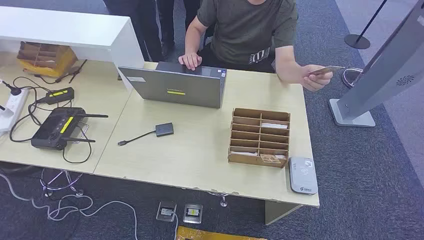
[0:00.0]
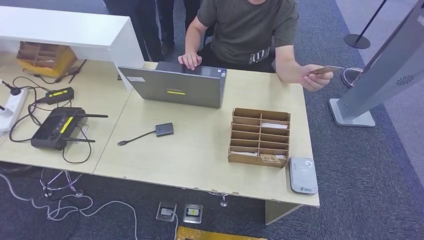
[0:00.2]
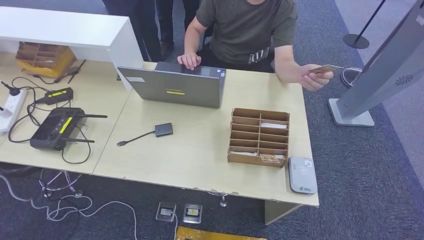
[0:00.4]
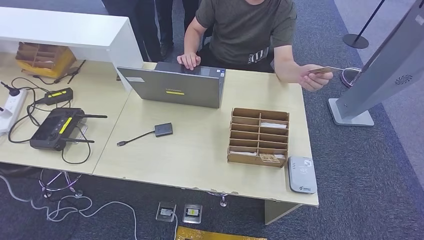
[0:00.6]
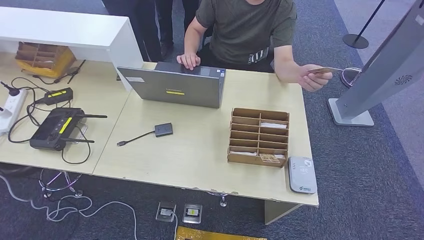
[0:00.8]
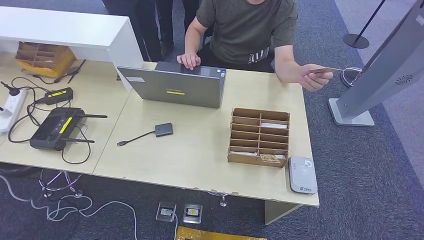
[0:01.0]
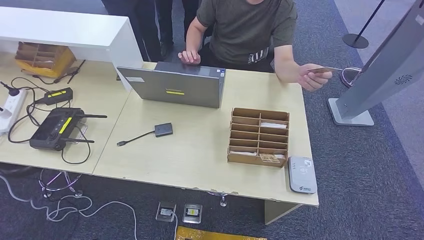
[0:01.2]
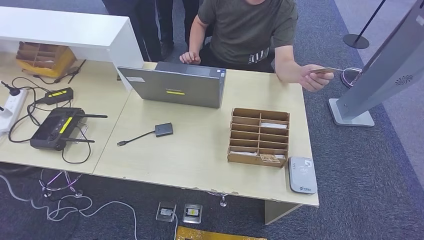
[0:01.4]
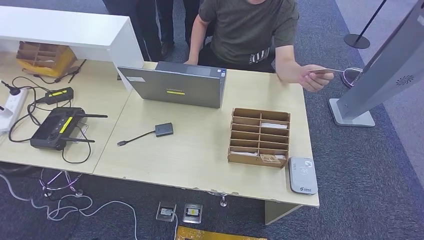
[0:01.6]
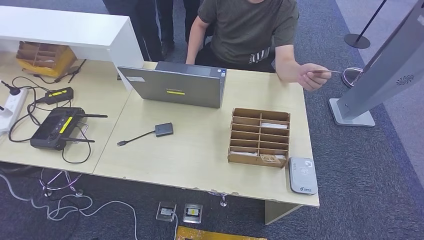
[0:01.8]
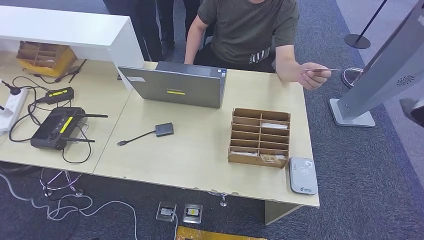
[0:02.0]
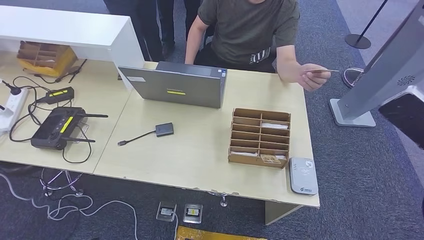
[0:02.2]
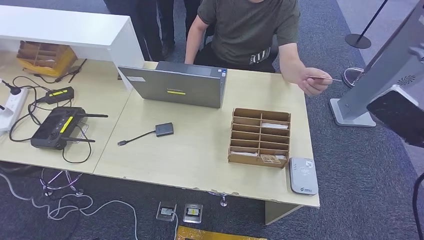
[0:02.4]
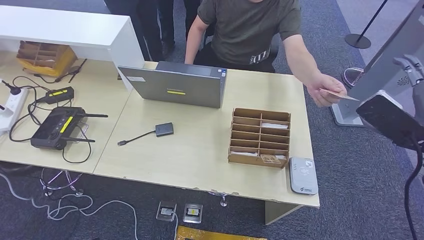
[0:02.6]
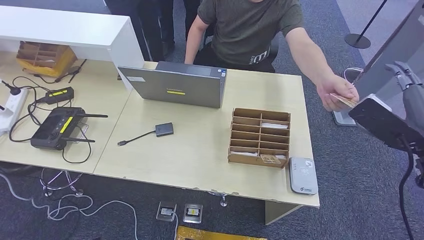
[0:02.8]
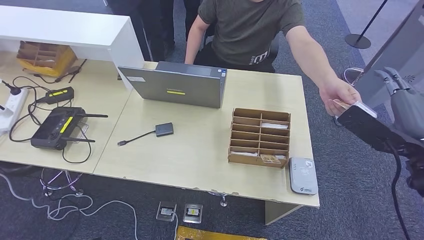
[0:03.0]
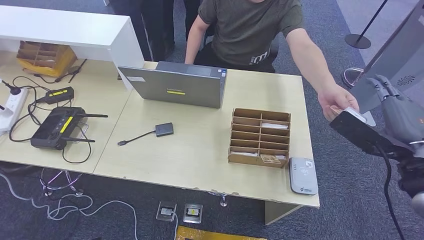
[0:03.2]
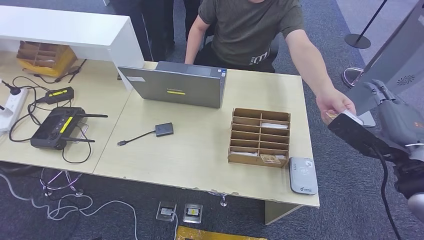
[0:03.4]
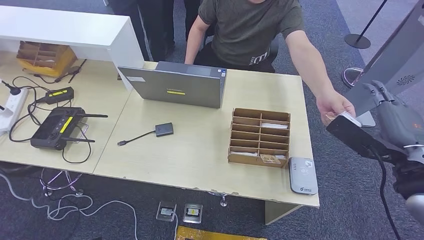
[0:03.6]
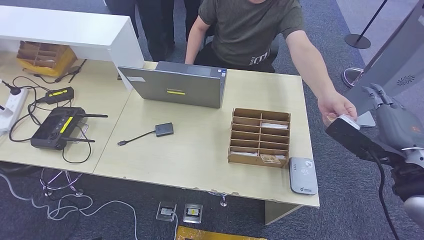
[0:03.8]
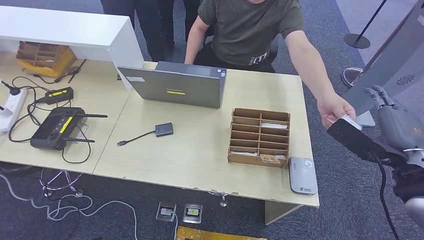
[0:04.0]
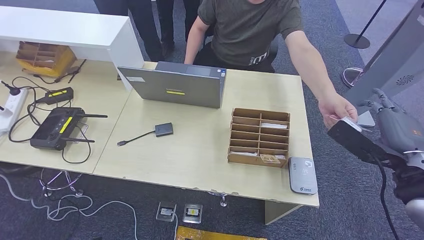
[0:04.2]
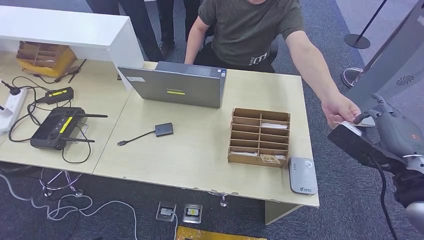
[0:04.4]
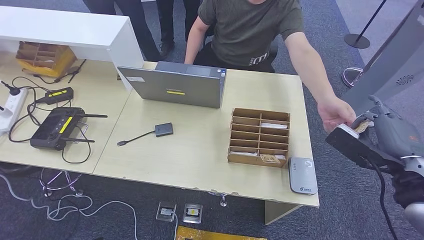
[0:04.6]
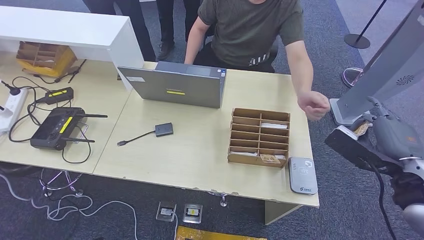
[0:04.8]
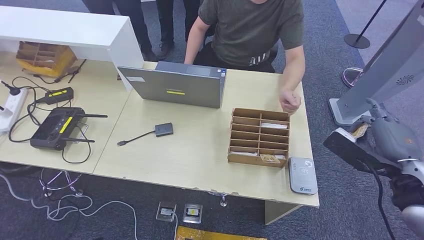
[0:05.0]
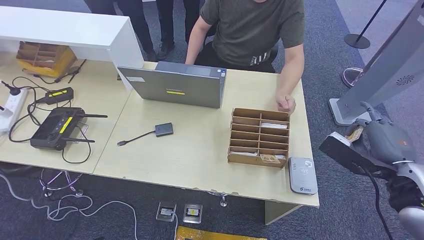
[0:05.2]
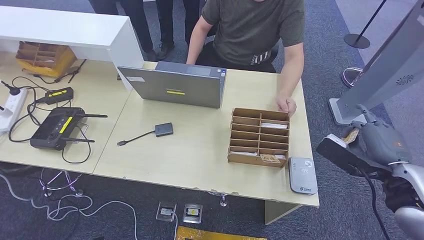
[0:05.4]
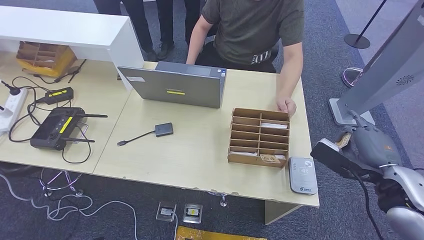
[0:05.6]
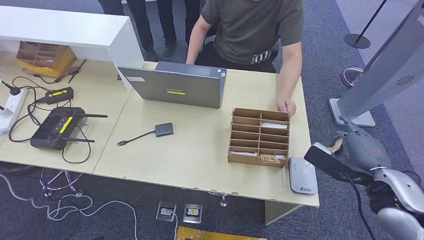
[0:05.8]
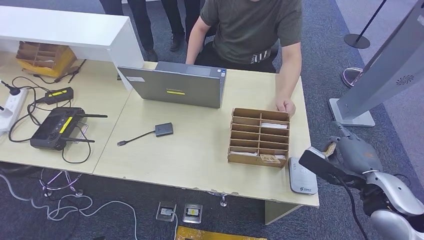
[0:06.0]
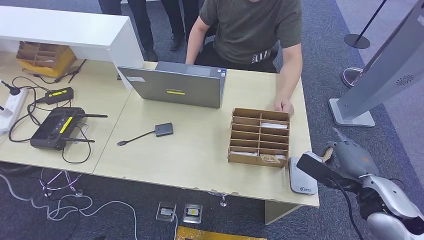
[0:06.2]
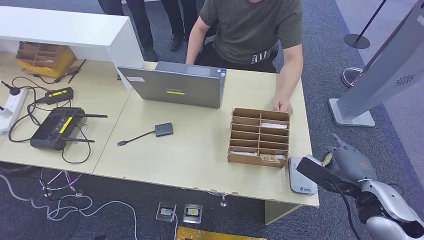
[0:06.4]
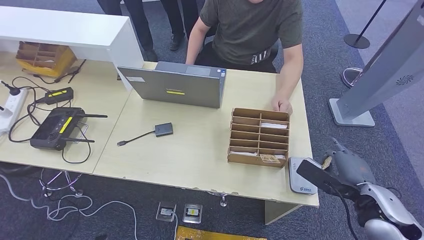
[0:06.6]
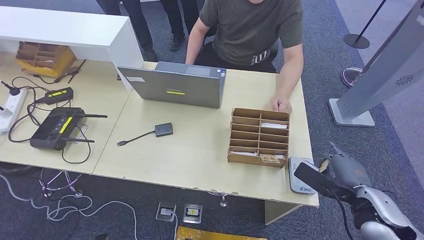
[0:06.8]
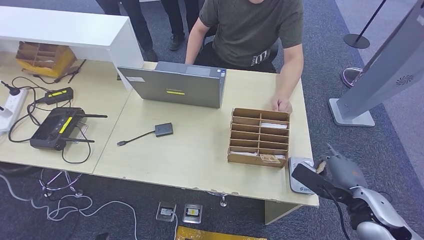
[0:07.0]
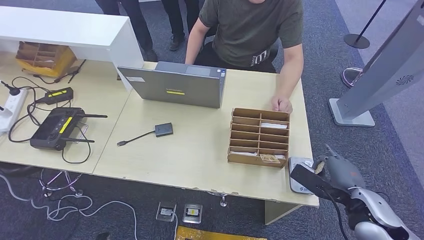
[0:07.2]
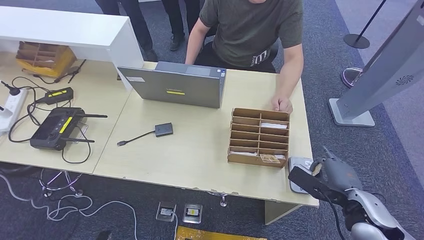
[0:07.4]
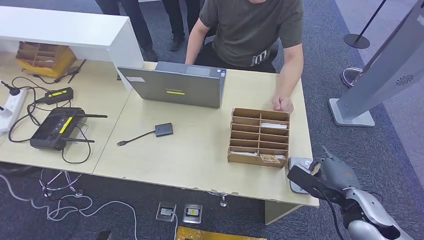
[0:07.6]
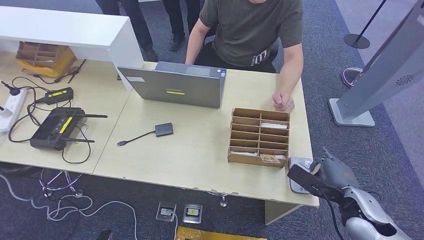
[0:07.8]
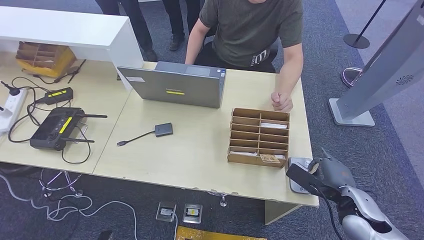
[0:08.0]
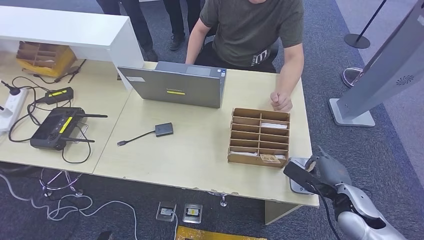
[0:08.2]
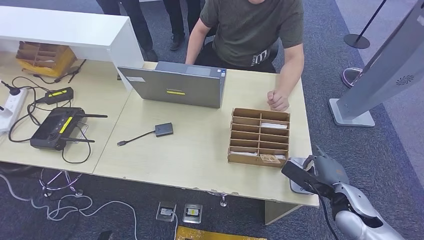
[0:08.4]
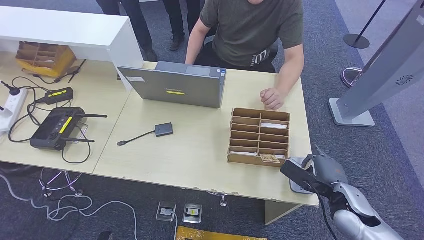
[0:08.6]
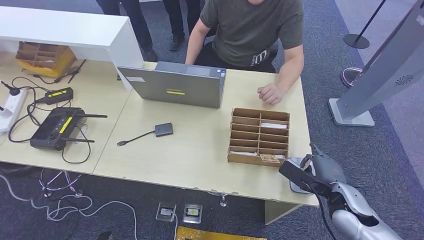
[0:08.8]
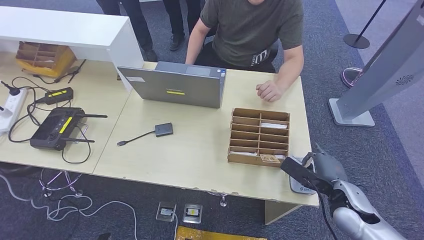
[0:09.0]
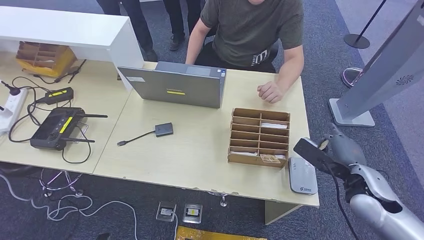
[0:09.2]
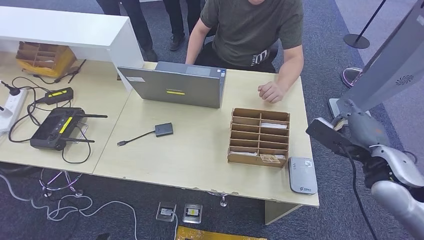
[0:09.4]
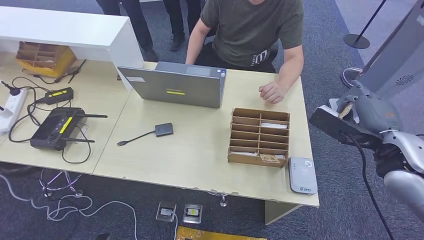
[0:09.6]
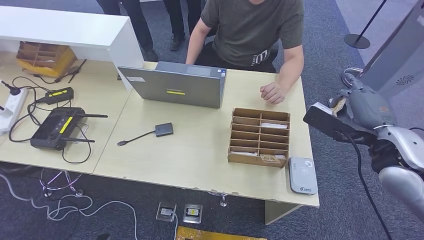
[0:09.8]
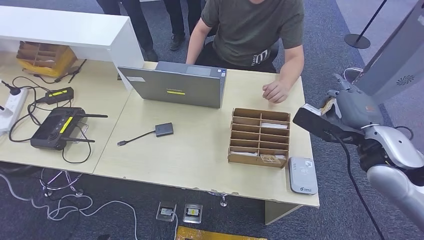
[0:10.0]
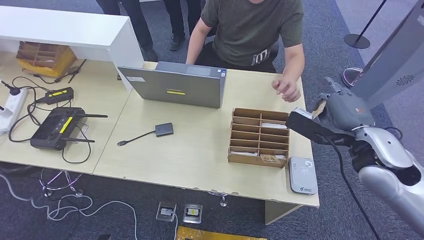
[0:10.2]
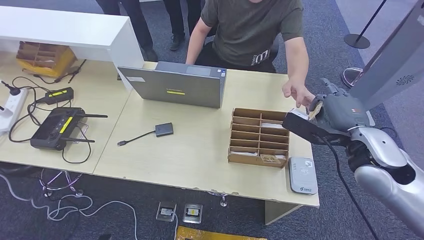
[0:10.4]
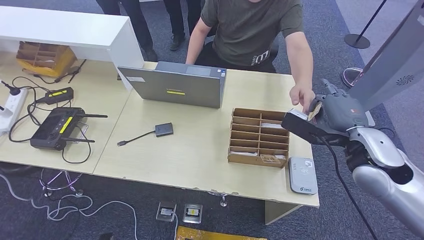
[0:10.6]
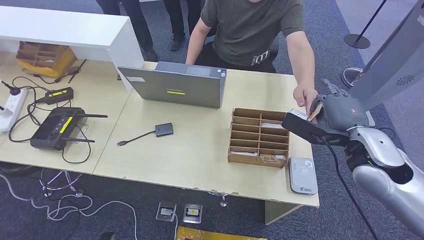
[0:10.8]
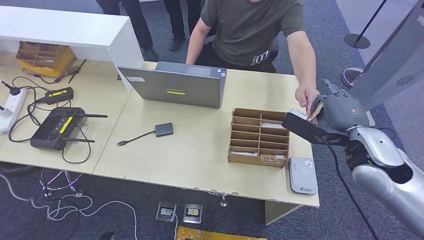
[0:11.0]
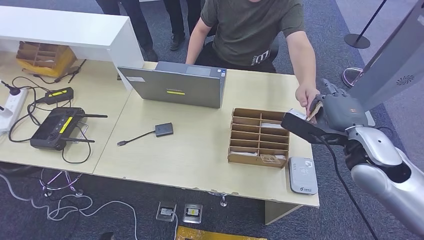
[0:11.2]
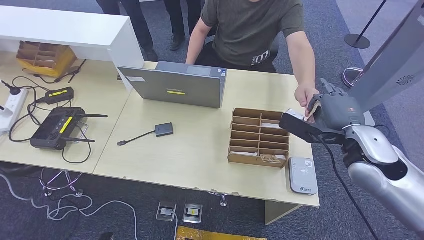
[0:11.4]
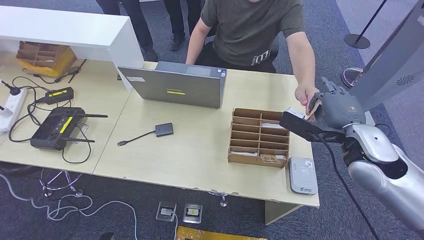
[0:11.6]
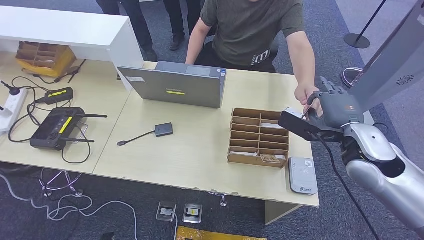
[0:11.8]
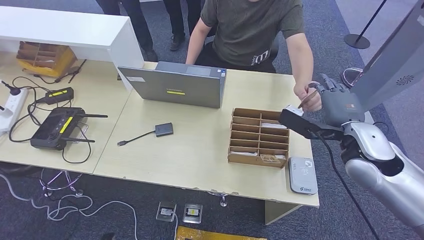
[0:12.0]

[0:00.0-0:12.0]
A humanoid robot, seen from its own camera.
Step, 0.0 to 6.4 s: Take the ID card from the person's hand.
Step, 6.6 to 8.2 s: Place the ID card on the card reader.
Step, 8.4 to 11.8 s: Hand the ID card to the person.
1.6 to 3.0 s: The right hand is displaced forward, downward and to the left by approximately 15 cm.
3.0 to 4.4 s: The right hand travels downward by roughly 5 cm.
4.4 to 6.0 s: The right hand moves downward, roughly 10 cm.
6.0 to 7.6 s: The right hand heads downward, covering about 10 cm.
7.6 to 9.0 s: The hands move only a little.
9.0 to 10.4 s: The right hand heads upward, covering some 20 cm.
10.4 to 12.0 s: The hands make only small movements.

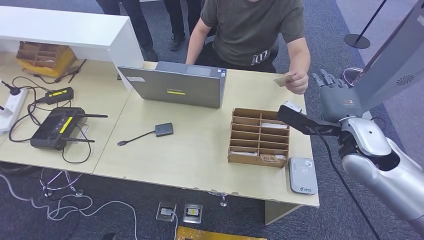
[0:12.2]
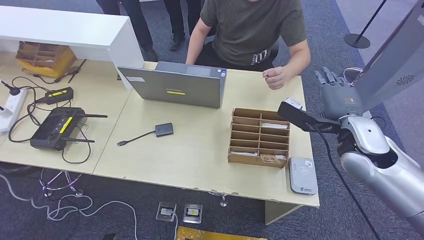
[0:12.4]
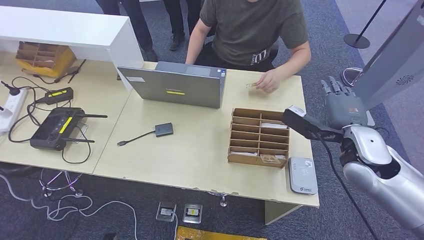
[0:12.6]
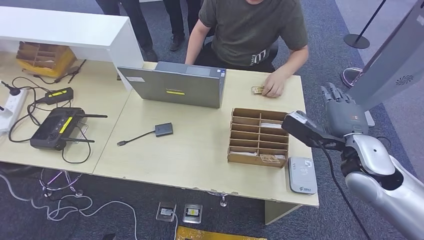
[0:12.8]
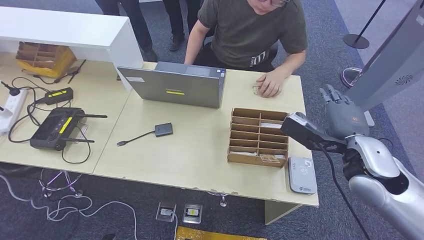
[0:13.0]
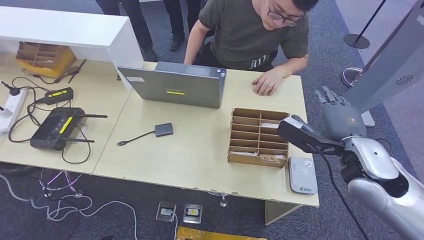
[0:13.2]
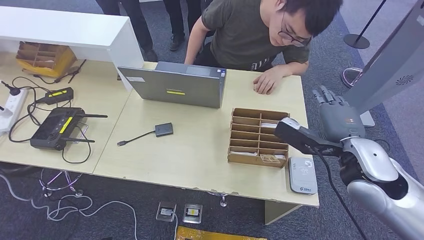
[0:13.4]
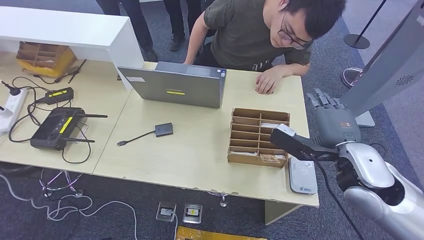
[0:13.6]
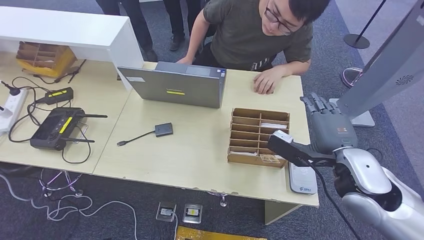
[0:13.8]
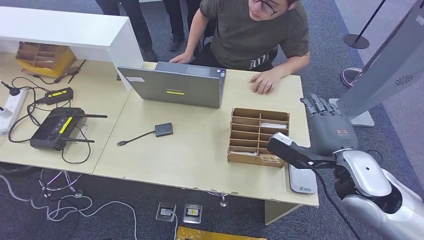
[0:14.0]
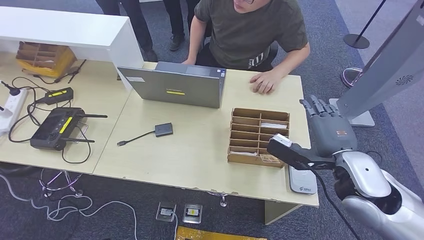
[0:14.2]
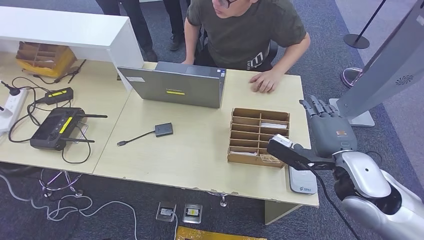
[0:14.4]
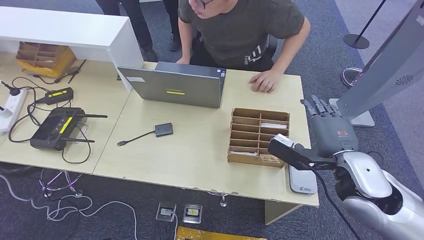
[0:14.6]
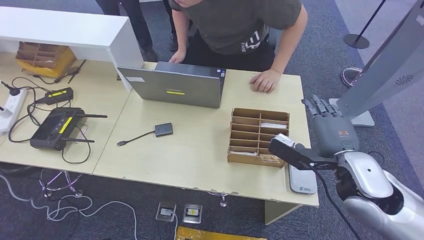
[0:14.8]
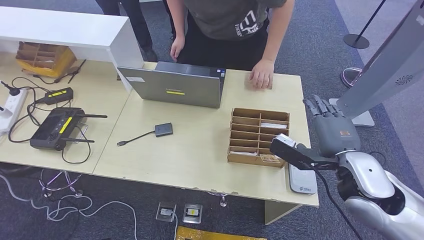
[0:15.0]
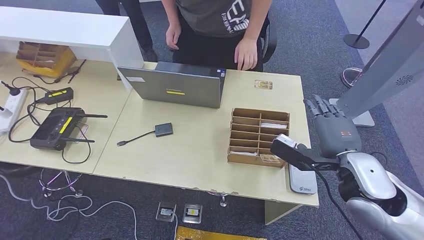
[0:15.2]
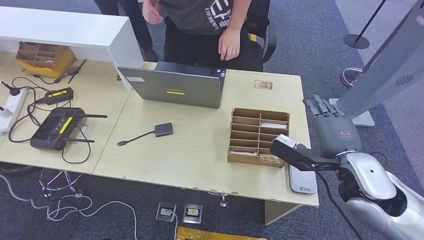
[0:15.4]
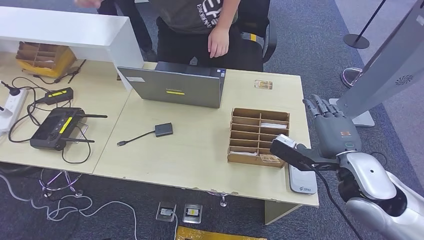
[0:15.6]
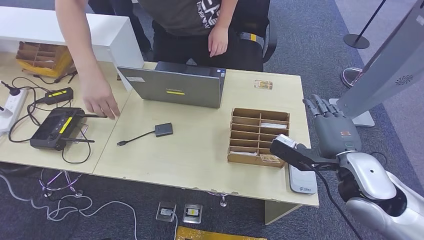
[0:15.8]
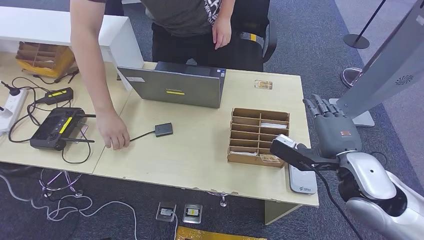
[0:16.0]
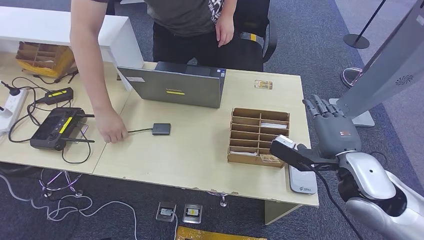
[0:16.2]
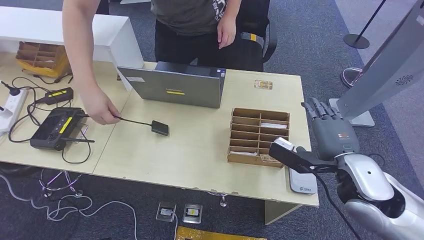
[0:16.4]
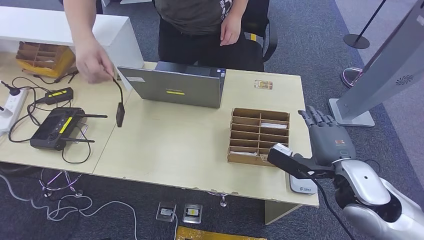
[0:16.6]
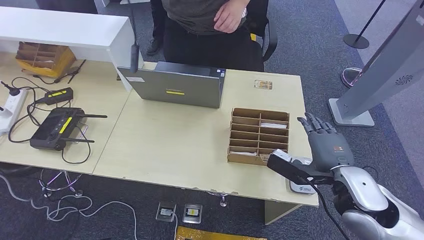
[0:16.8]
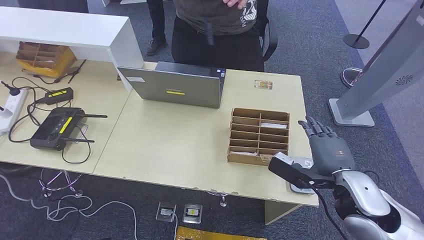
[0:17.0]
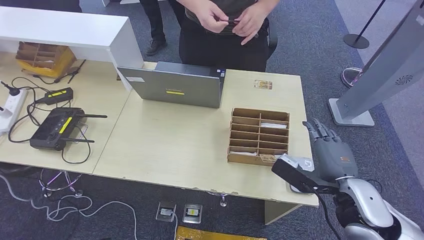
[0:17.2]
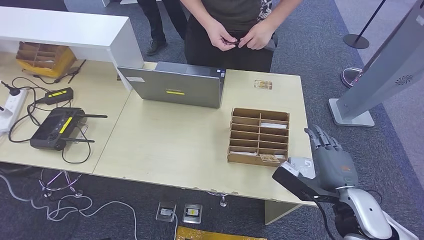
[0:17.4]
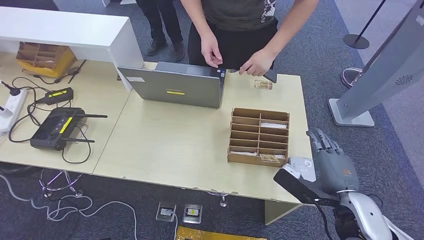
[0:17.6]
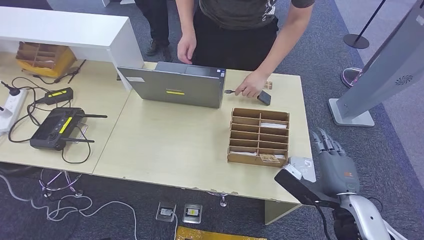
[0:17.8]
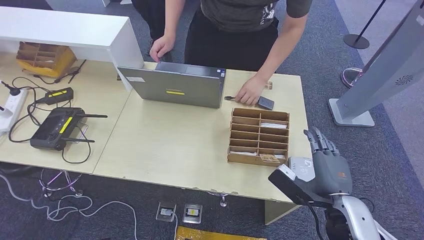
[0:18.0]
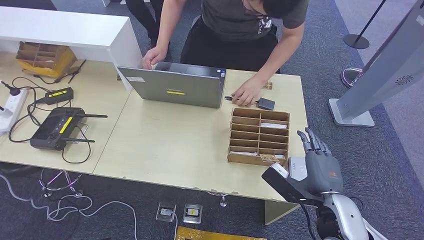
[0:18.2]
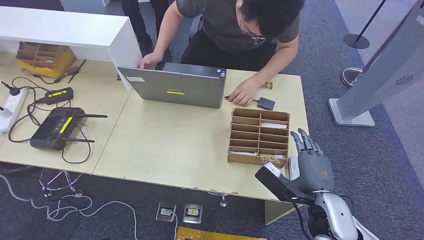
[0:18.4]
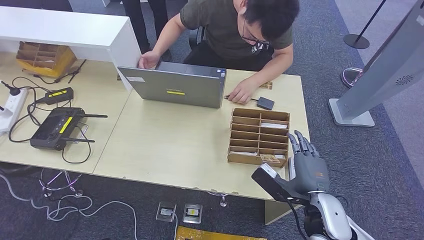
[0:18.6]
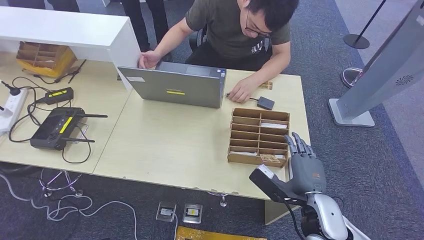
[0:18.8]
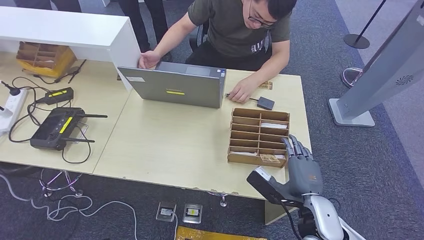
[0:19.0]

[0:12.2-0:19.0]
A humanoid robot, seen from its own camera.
12.2 to 13.6 s: The right hand is displaced backward by roughly 5 cm.
13.6 to 15.0 s: The hands move only a little.
15.0 to 16.2 s: Neither hand changes place.
17.6 to 19.0 s: The right hand travels to the left and downward by roughly 10 cm.
